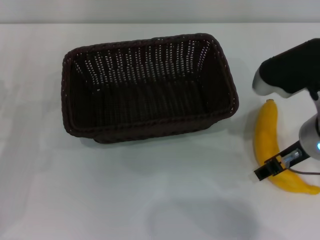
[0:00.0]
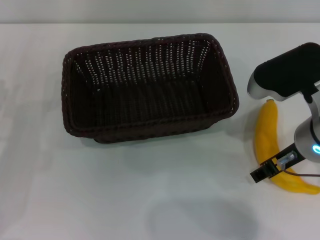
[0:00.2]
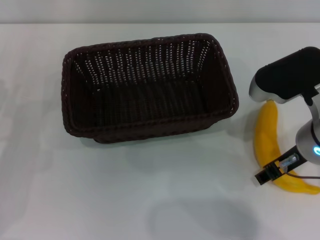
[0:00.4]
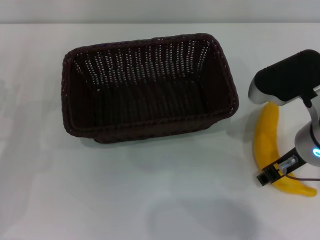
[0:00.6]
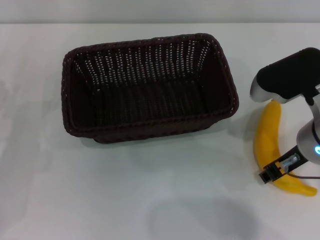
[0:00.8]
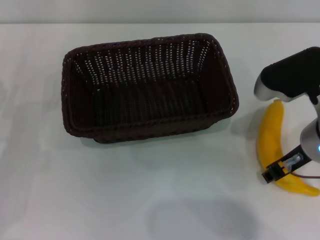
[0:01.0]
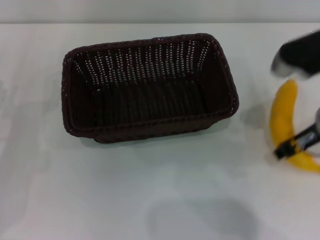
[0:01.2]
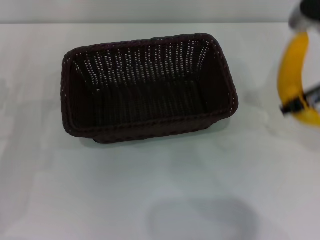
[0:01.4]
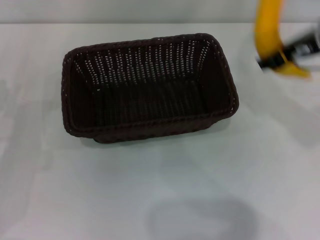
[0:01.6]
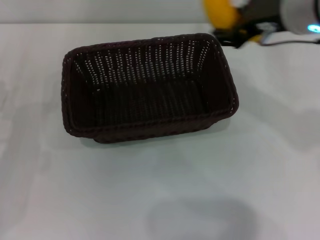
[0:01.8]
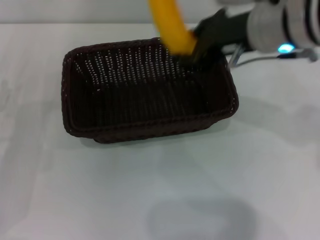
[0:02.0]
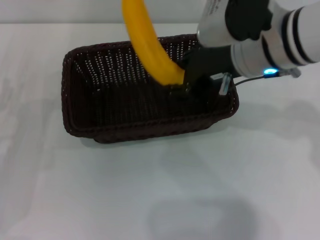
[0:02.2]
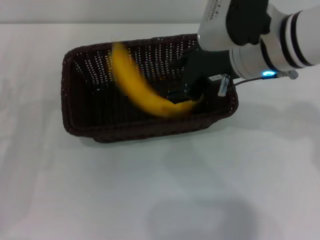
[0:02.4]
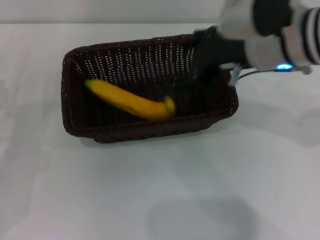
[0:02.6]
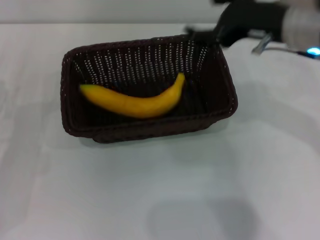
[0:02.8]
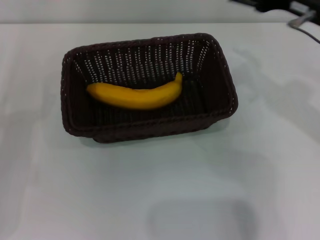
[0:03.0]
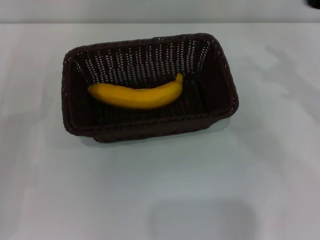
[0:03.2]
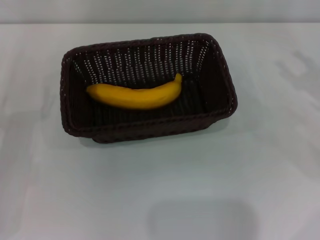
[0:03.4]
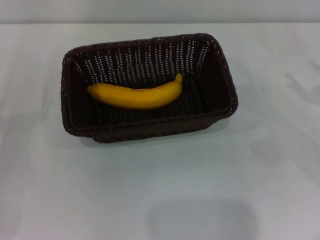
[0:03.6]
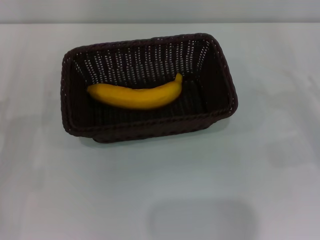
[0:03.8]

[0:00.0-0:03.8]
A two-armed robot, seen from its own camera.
Step, 0:01.4 to 0:02.4: Place the banana into the dark basket with the right gripper.
0:00.0 to 0:01.2: The right gripper closes.
0:01.2 to 0:02.6: The right gripper is displaced to the left by some 5 cm, and opens.
0:02.6 to 0:03.8: The right gripper is displaced to the right and downward by about 30 cm, and opens.
